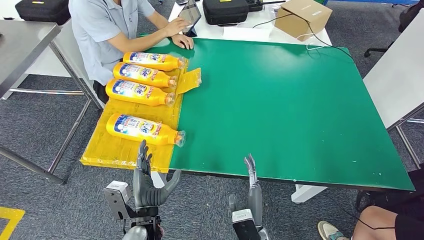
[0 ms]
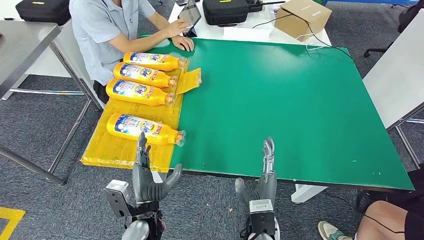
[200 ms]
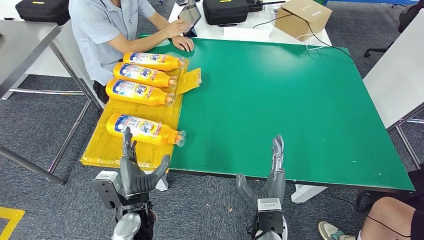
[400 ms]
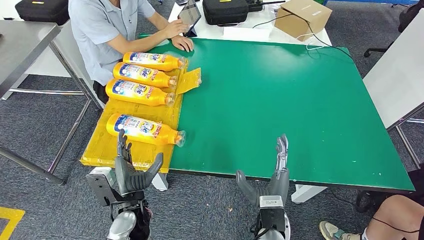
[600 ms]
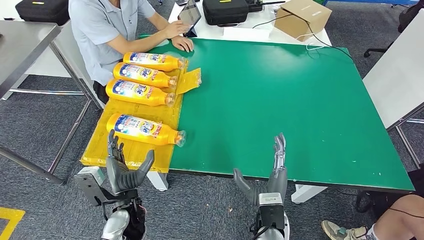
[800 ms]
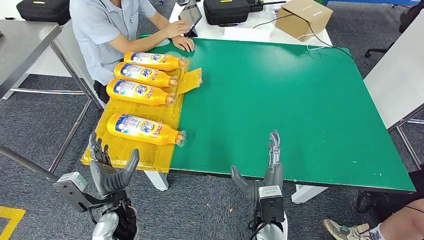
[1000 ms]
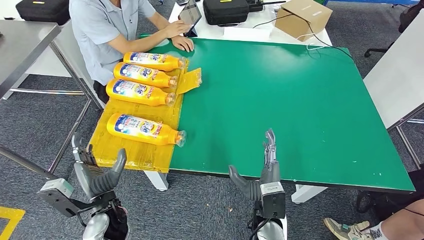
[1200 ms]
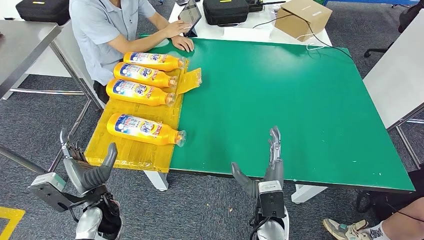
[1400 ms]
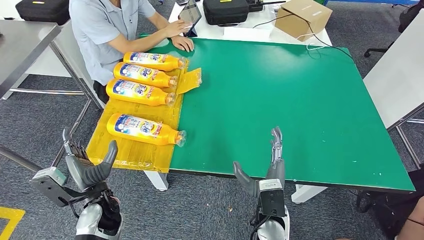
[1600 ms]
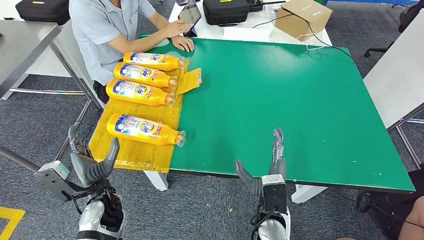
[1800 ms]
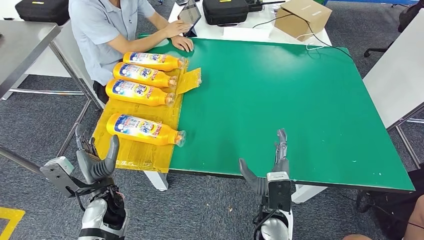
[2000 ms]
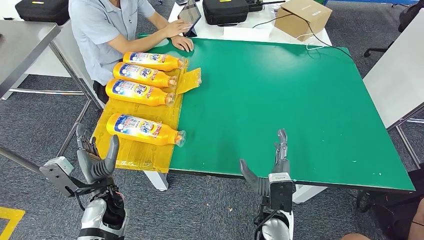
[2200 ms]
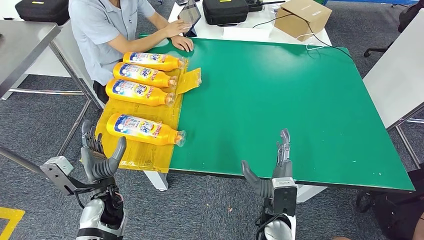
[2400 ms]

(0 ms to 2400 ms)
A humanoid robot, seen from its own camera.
Step, 0 ms - 2400 ms: Flip the fast-moving consumer goods bottle to the front side.
0 ms - 1200 ms: The left hand heads to the left, covering about 10 cm. Meanwhile the right hand heads upward and forward, covering about 5 cm.
1200 ms - 2400 ms: There are only small adjustments of the hands.
